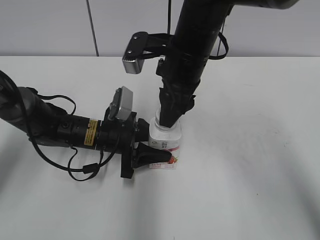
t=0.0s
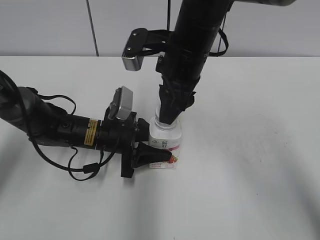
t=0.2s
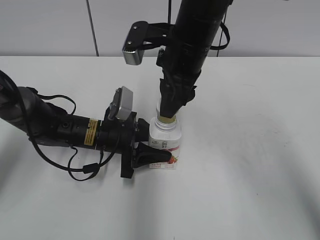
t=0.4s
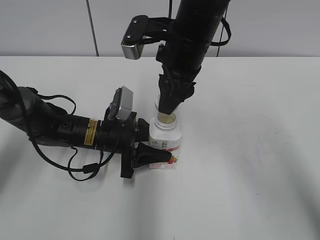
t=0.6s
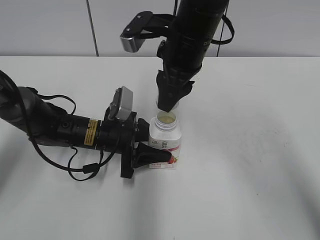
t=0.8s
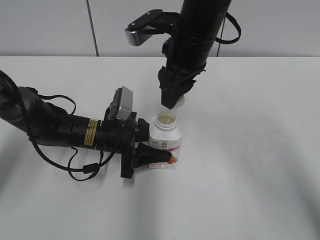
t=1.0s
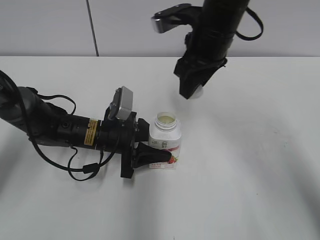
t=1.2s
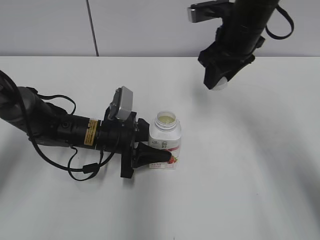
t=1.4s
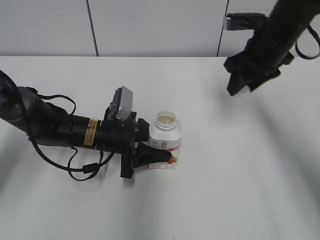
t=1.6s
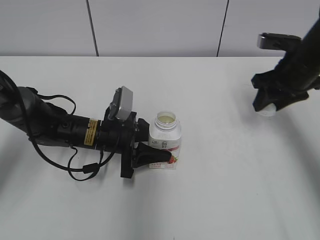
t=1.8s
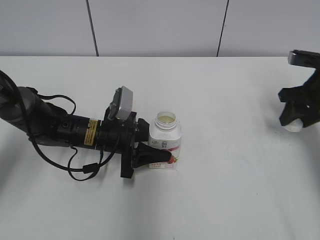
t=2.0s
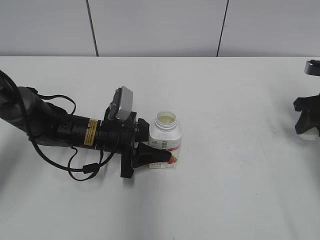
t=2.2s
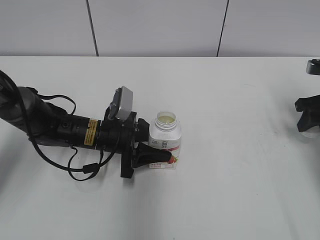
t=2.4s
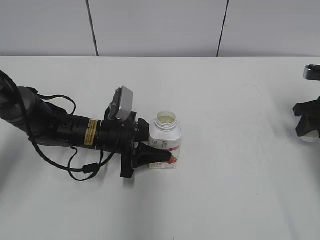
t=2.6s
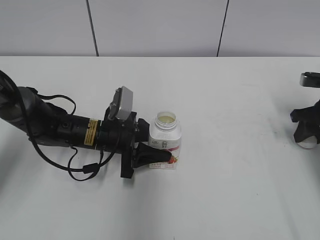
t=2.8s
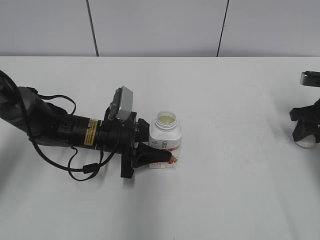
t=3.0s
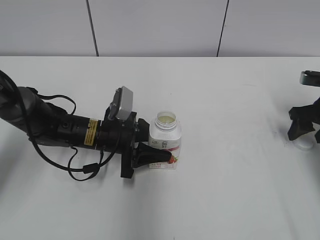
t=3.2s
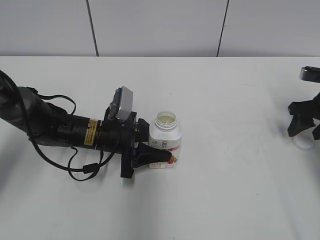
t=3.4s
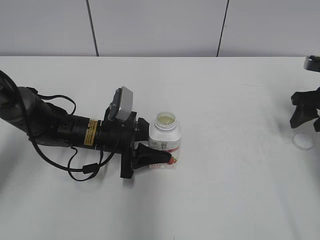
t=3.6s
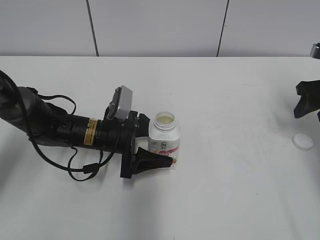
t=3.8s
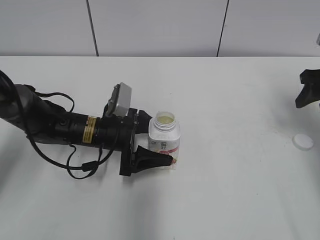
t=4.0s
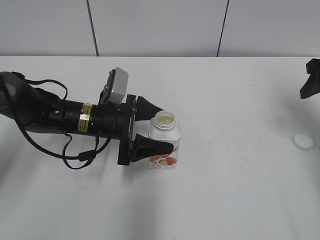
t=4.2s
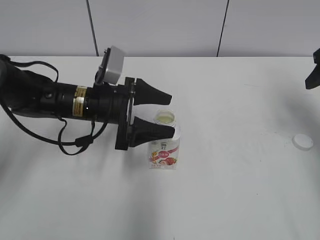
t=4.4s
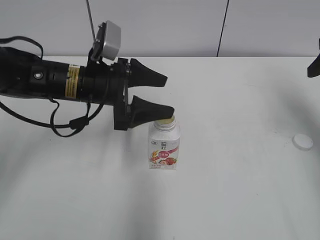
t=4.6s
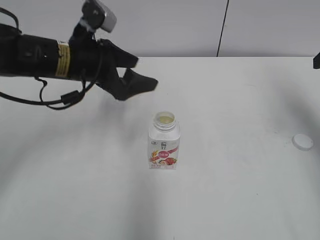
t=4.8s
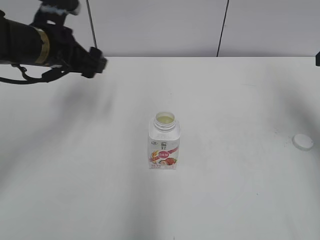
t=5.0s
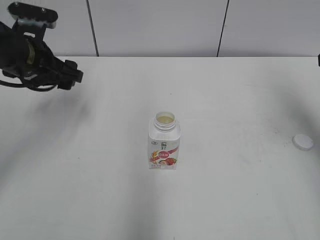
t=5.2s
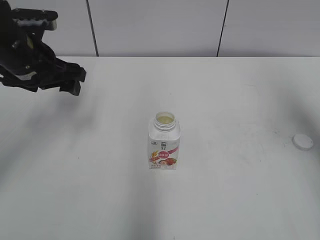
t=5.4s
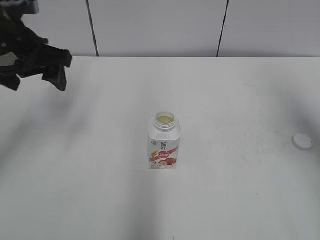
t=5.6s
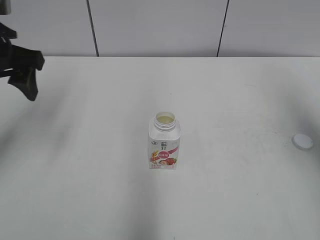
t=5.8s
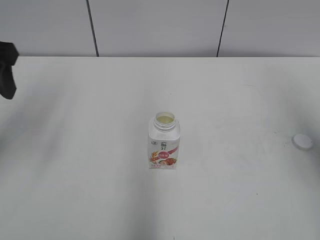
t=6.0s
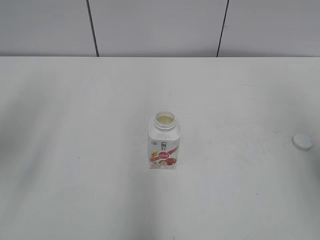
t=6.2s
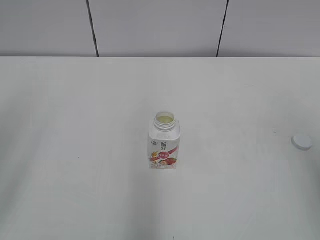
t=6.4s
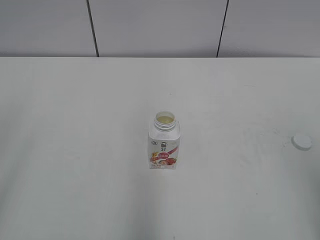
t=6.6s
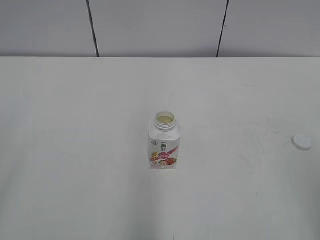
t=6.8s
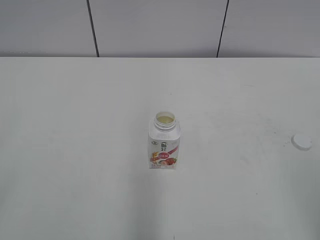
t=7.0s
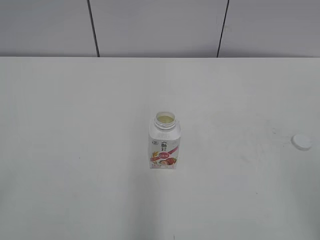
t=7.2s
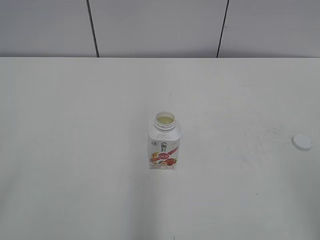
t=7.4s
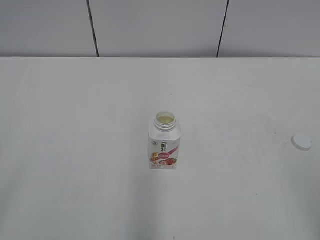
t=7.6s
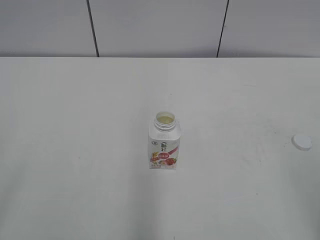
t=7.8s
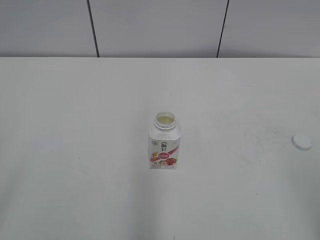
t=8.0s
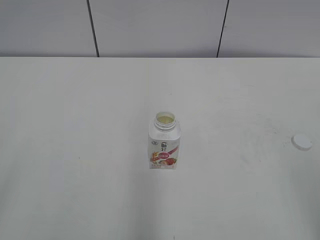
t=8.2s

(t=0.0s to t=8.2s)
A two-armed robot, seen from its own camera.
Step, t=0.8s - t=3.4s: Place the bottle cap on the right.
t=0.0s - t=1.6s: The right gripper goes some 5 cm to the right.
t=1.6s - t=3.2s: The right gripper moves to the right and downward, some 25 cm.
t=3.2s - t=5.0s: Both grippers move upward, roughly 15 cm. The right gripper opens; the left gripper opens up.
t=5.0s - t=6.6s: The right gripper is displaced backward and upward by approximately 20 cm. Meanwhile the left gripper heads upward, to the left and backward, covering about 25 cm.
